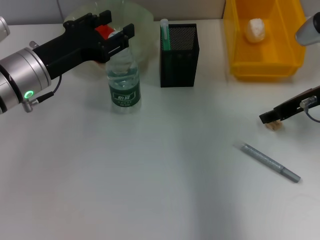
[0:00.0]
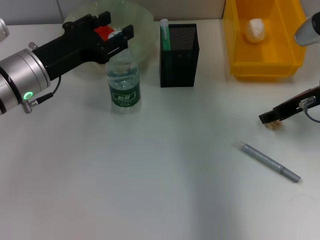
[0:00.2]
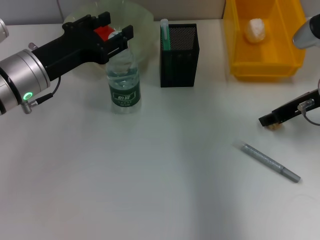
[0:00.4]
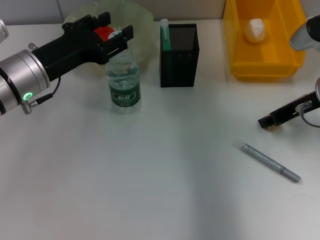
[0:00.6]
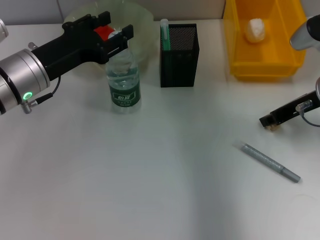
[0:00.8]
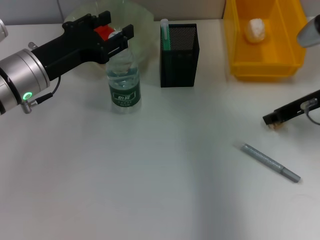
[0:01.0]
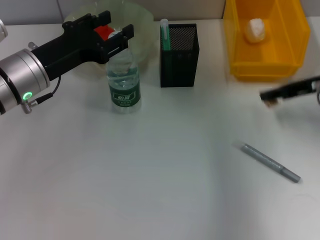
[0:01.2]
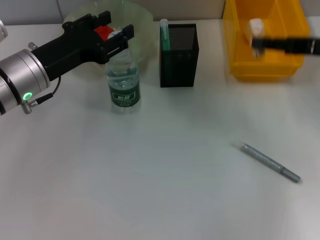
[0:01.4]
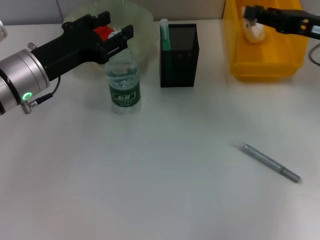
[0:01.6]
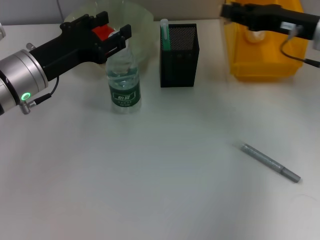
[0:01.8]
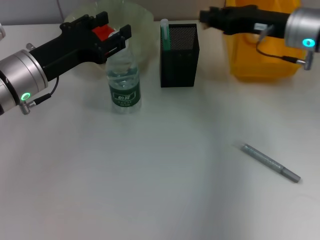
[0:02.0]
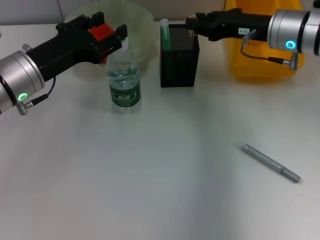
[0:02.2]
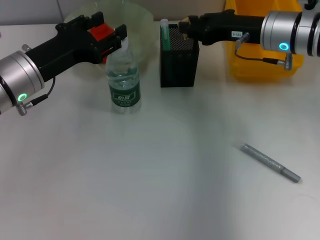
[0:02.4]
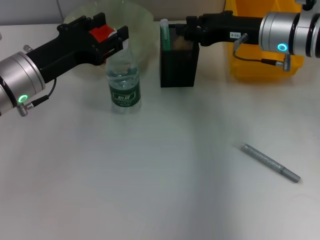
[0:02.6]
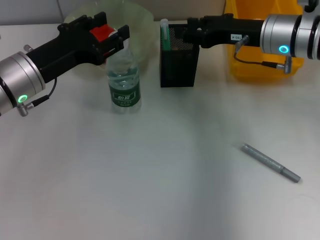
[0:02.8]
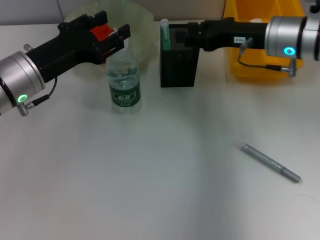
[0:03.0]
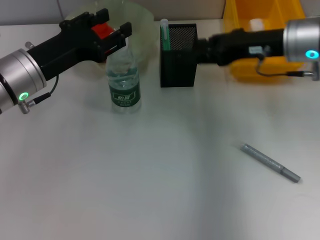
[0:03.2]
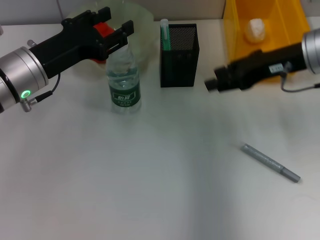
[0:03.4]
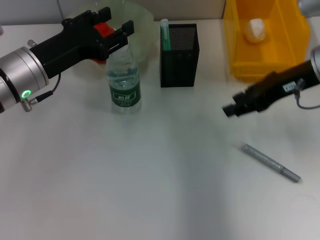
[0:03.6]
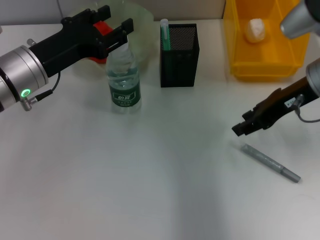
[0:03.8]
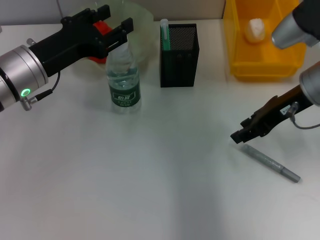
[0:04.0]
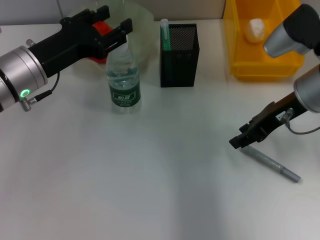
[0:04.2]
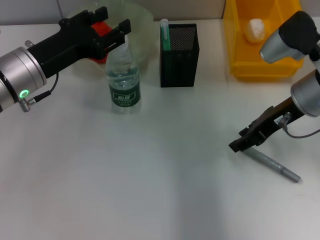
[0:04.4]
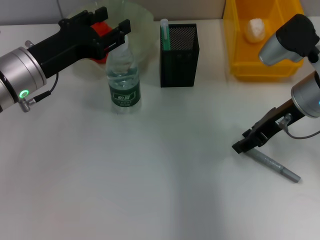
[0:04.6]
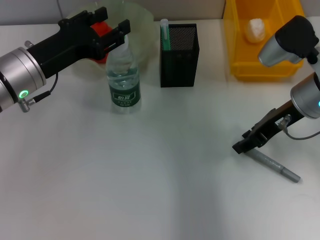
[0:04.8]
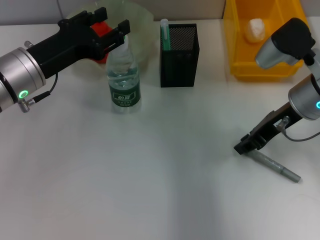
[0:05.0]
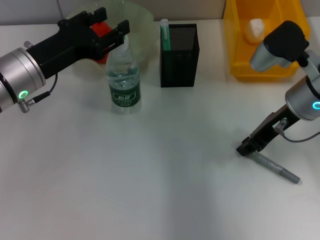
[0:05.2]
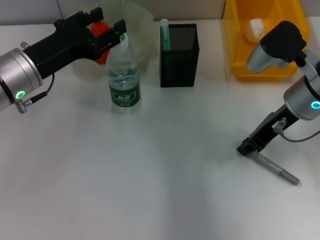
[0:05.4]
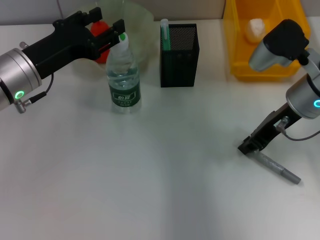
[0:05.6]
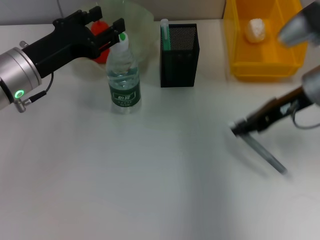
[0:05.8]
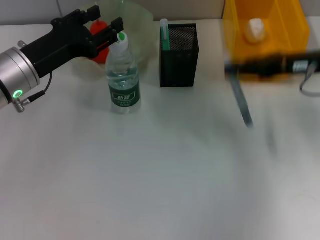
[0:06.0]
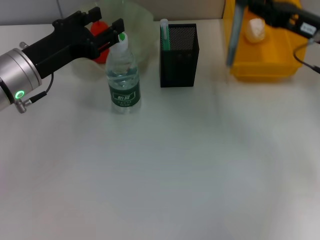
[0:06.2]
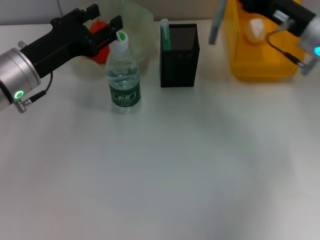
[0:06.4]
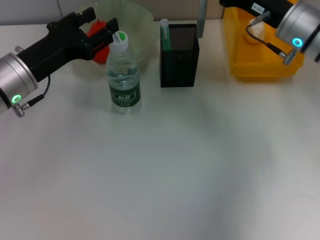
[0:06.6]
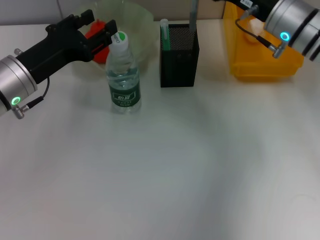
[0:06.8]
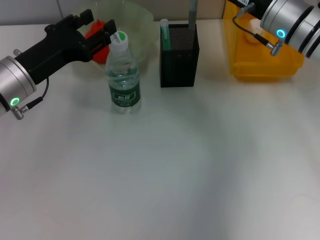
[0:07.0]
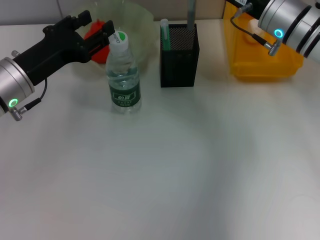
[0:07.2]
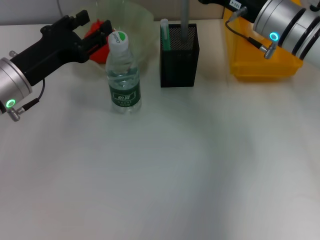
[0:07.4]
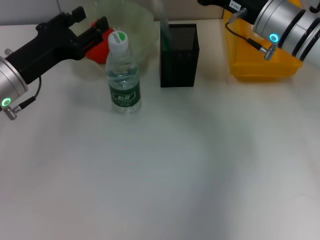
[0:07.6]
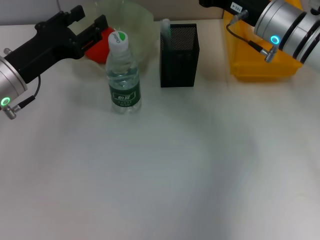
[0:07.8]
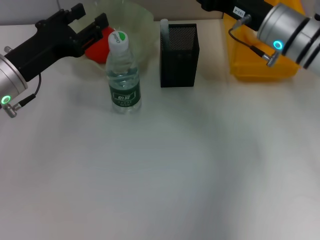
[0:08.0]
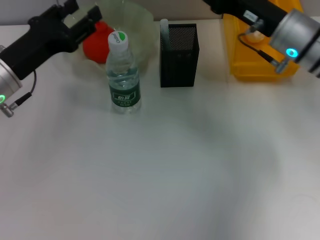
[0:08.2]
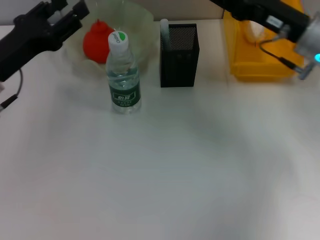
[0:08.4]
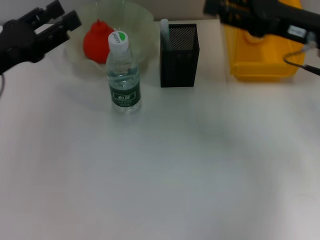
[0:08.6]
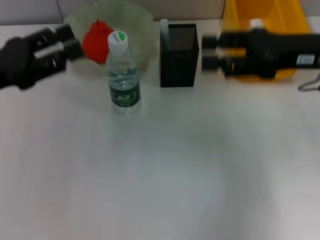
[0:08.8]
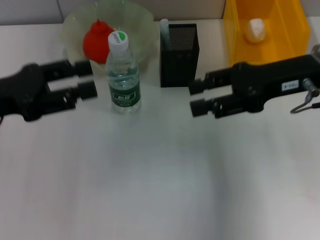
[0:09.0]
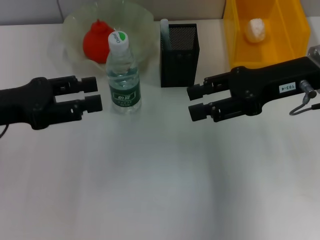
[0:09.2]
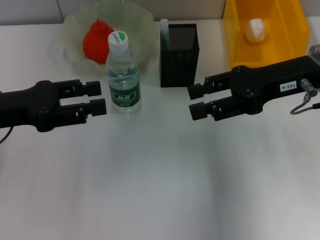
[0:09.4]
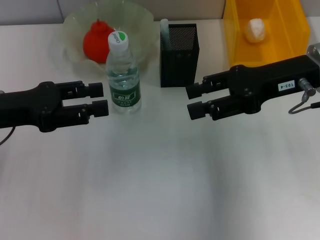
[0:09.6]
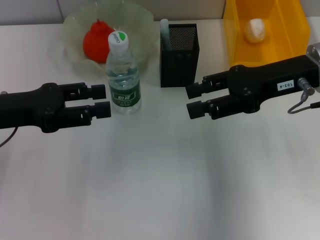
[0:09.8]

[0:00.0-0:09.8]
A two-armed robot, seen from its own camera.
Step, 0:01.0 to 0:02.8: Put the eraser into the pen holder with the right hand.
Step, 0:03.0 to 0:05.4: Grab the gray glue with the right hand.
Step, 0:05.6 to 0:08.0: Place the gray glue into the pen holder with the right hand.
0:00.0 to 0:01.4: The right gripper shifts by some 5 cm, and closes up.
0:01.4 to 0:02.8: The right gripper shifts roughly 10 cm to the left and forward.
0:02.8 to 0:04.2: The right gripper shifts some 5 cm backward.
0:04.2 to 0:05.6: The right gripper closes.
0:05.6 to 0:07.0: The right gripper goes some 5 cm forward, and travels to the right and back again, about 5 cm each way.
0:07.0 to 0:08.4: The right gripper changes place by some 5 cm, and opens.
